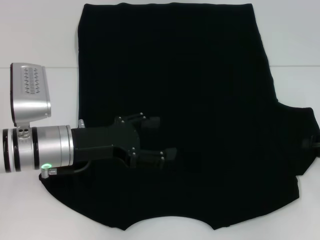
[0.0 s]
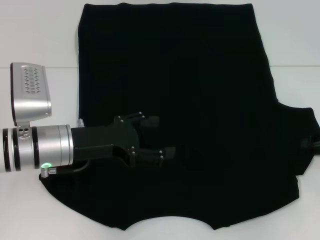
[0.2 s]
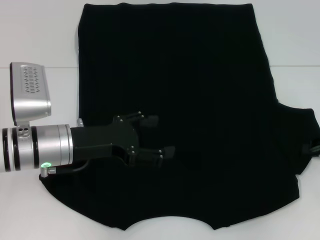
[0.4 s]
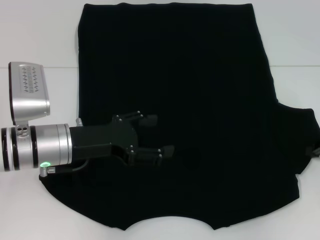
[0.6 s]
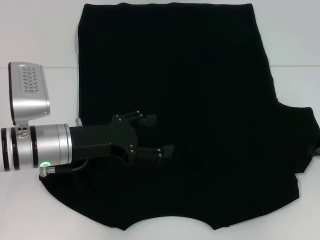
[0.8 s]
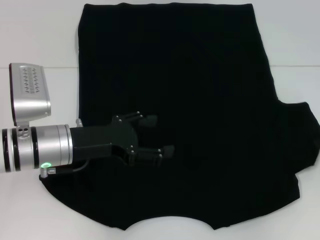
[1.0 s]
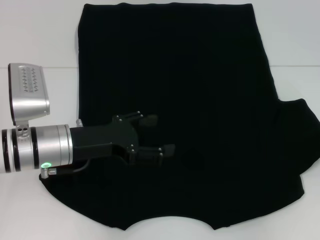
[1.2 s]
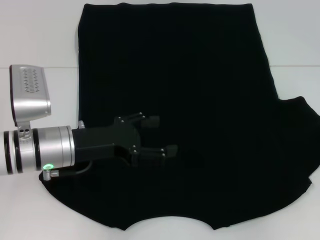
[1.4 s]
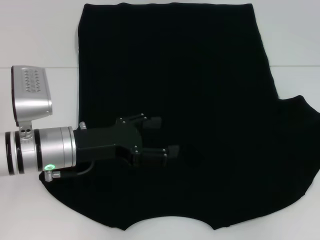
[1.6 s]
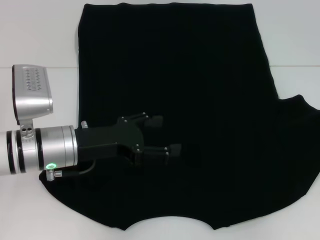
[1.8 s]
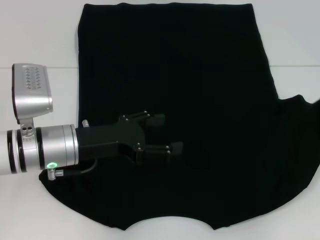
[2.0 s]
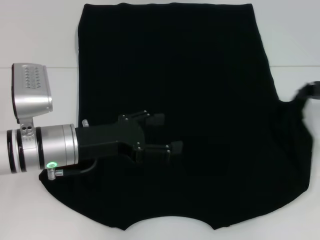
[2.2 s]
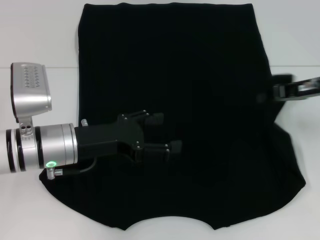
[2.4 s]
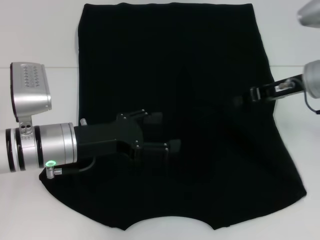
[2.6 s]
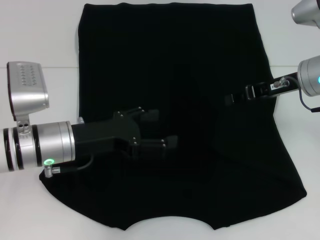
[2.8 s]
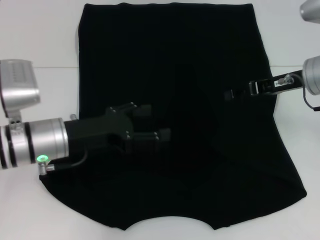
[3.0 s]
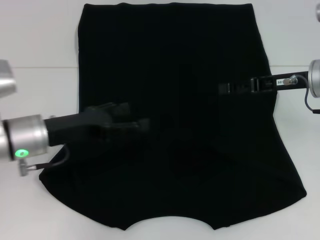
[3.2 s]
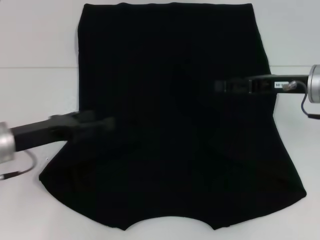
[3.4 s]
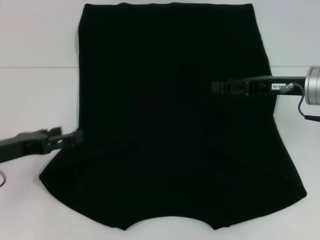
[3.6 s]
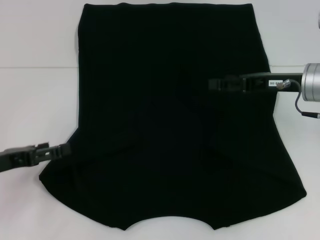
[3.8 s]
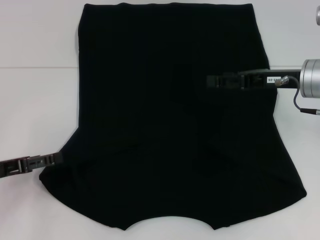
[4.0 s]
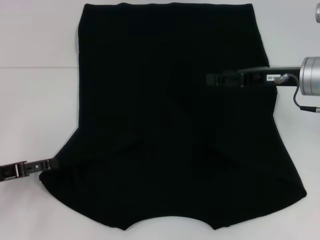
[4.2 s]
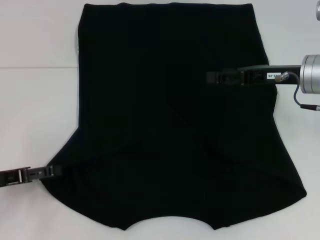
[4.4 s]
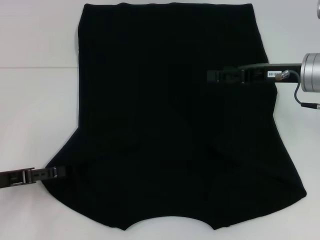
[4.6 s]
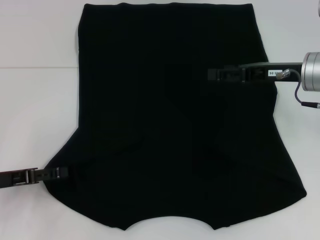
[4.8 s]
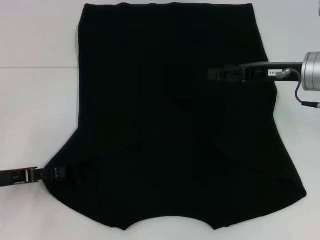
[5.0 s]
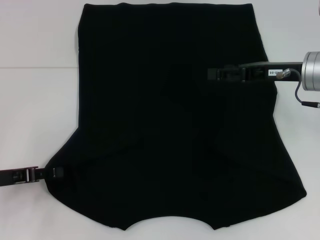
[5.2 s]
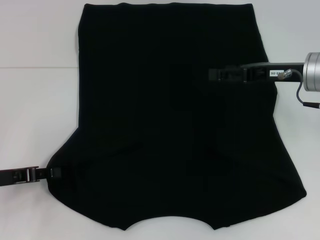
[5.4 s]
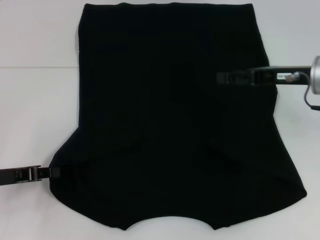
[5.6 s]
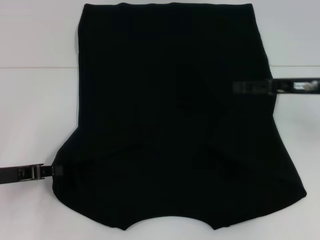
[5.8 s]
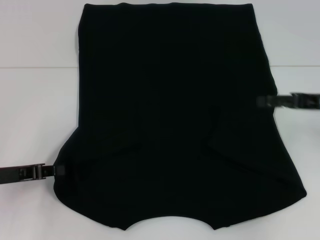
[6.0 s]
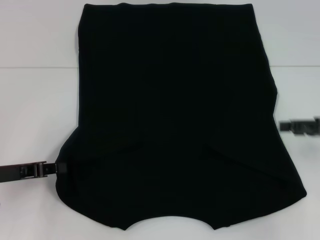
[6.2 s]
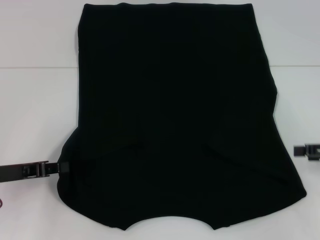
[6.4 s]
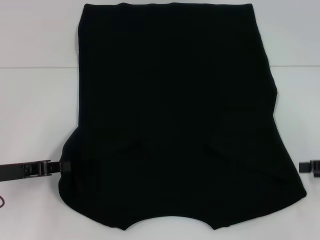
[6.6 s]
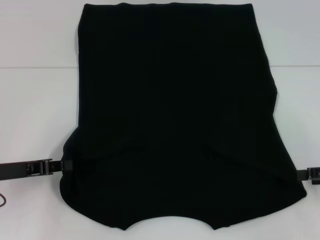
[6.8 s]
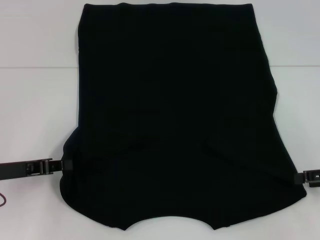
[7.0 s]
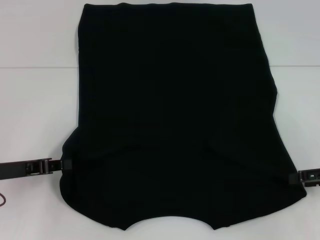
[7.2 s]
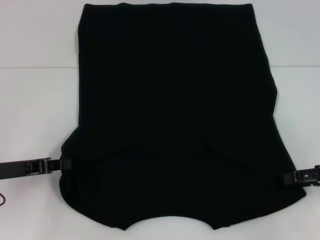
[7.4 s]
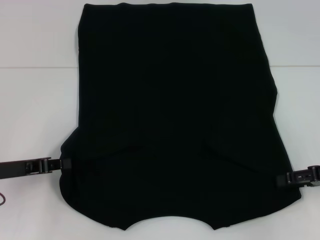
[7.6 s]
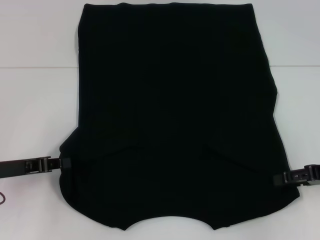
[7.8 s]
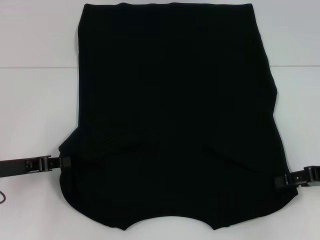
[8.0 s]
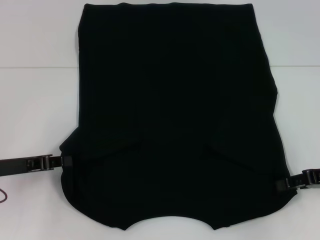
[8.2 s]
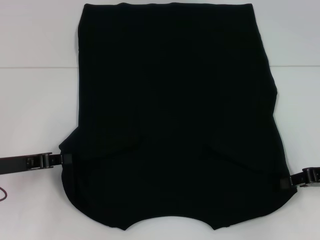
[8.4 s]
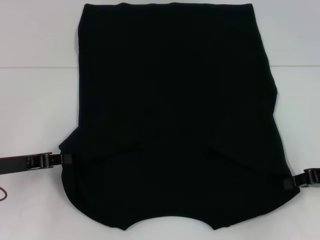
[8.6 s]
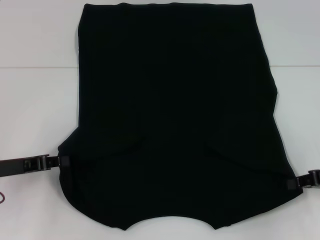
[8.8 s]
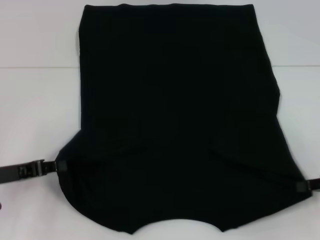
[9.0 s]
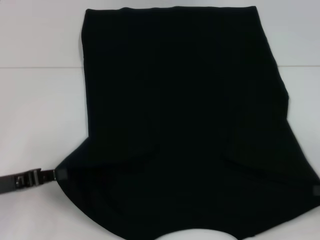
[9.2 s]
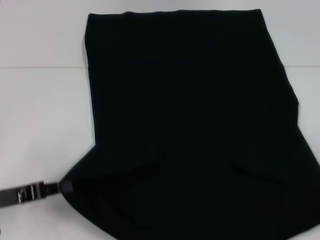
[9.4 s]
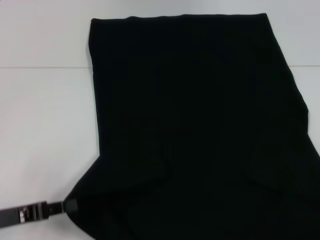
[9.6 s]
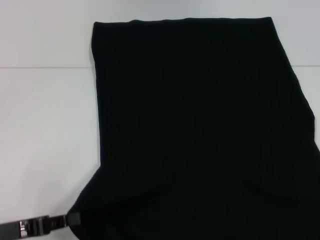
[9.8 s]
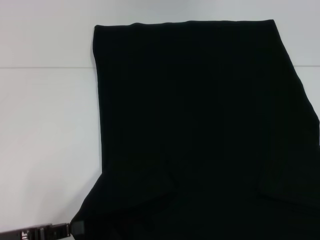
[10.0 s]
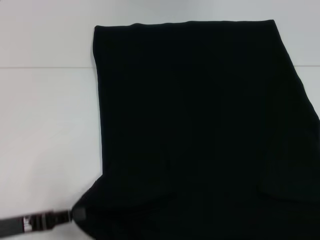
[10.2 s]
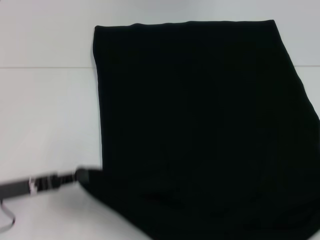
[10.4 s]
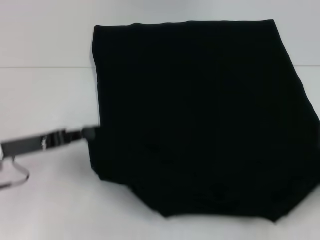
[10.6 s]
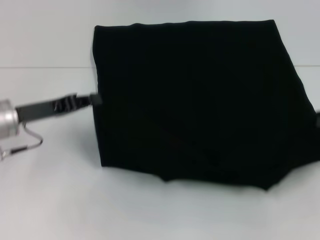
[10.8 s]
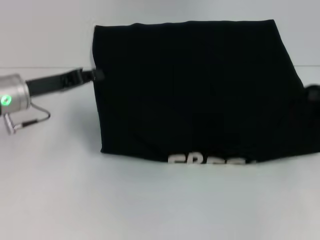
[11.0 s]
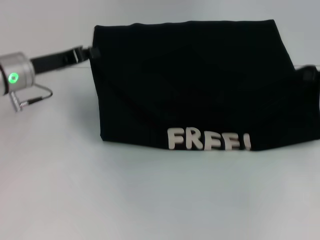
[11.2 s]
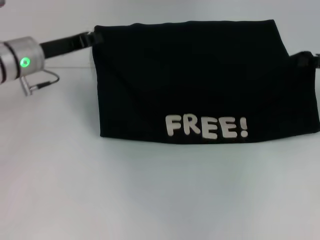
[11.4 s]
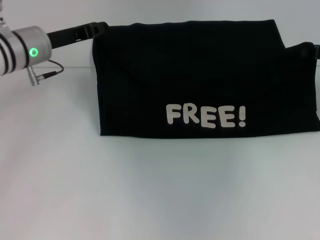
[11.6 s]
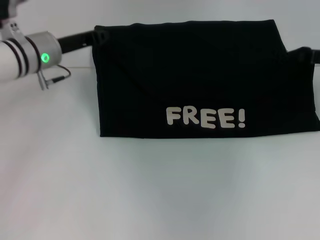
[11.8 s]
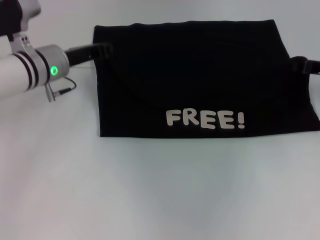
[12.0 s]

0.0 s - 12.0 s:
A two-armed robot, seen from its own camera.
Step, 0.0 s - 2.8 s: Fold the bottom right sleeve with your right hand.
Step, 3.0 s - 5.8 s: Grab the bottom left corner with your left hand.
Step, 6.0 s - 8.6 s: Grab the bottom right corner with your right hand.
0.0 s - 1.6 s: The right gripper closes.
1.6 s - 3.0 s: The right gripper is displaced to the left by roughly 15 cm, and opens up.
3.0 s - 4.4 s: The left gripper heads to the left and backward, covering some 15 cm. The right gripper opens up.
4.4 s - 6.0 s: The right gripper moves to the right, some 10 cm. The left gripper closes up.
6.0 s - 7.6 s: The right gripper travels backward by about 5 cm.
7.6 s - 9.0 s: The right gripper closes.
9.0 s - 10.4 s: The right gripper goes some 10 cm backward and to the right.
10.4 s - 12.0 s: The right gripper moves forward and to the left, approximately 25 cm; the left gripper goes roughly 20 cm forward and to the right.

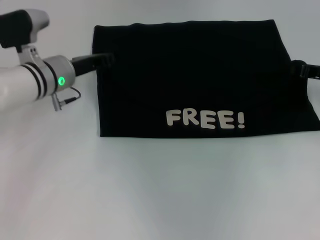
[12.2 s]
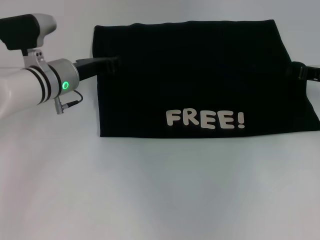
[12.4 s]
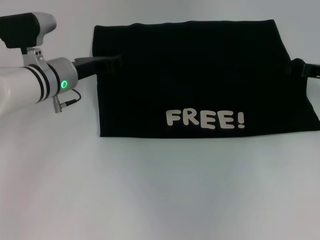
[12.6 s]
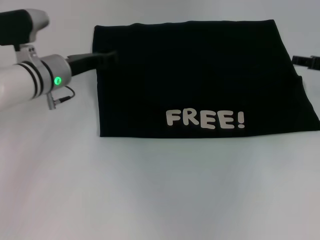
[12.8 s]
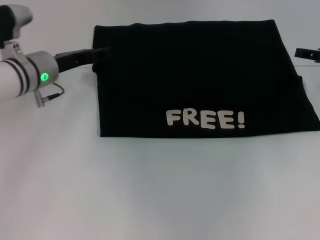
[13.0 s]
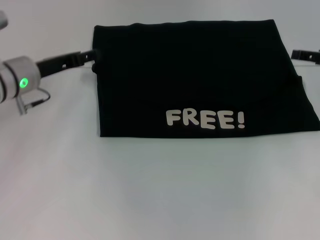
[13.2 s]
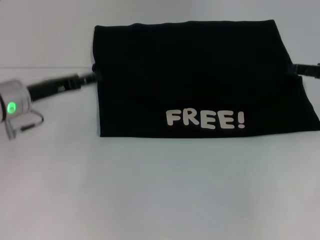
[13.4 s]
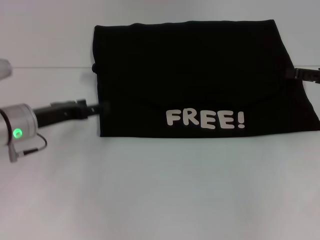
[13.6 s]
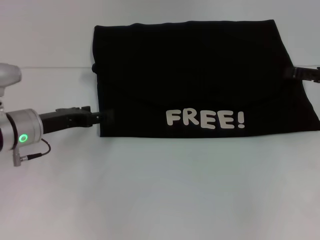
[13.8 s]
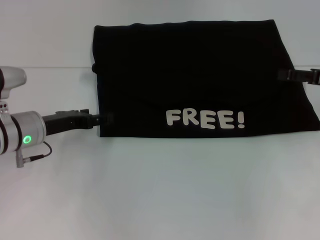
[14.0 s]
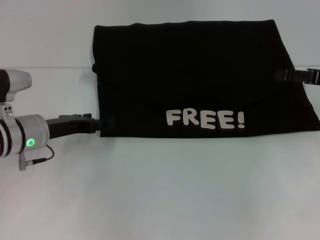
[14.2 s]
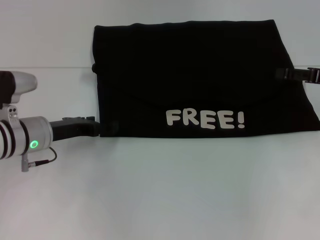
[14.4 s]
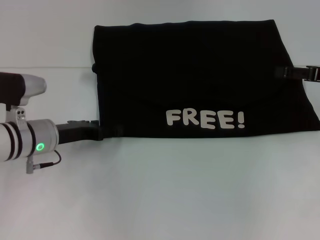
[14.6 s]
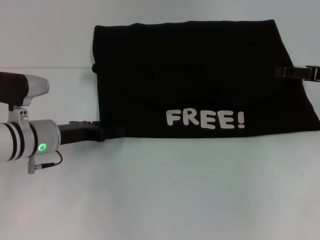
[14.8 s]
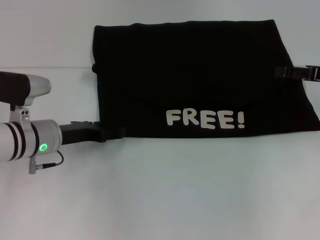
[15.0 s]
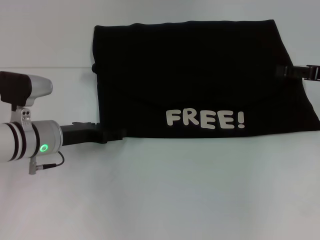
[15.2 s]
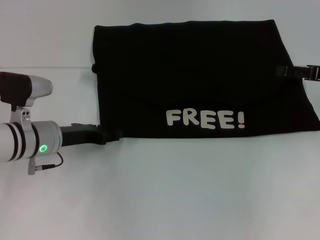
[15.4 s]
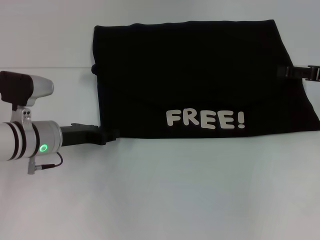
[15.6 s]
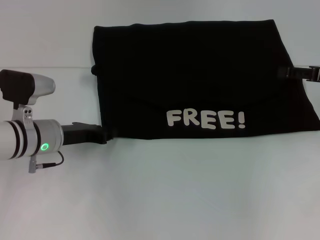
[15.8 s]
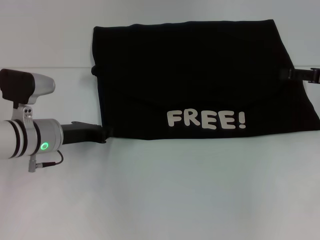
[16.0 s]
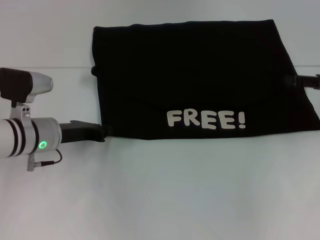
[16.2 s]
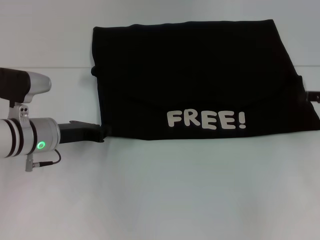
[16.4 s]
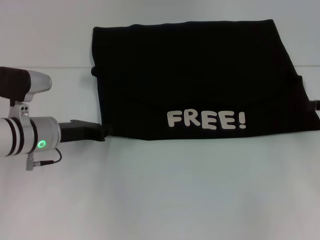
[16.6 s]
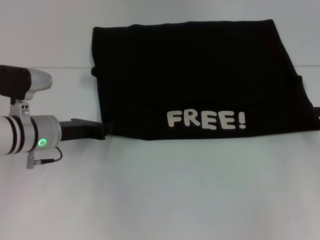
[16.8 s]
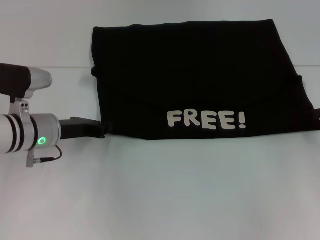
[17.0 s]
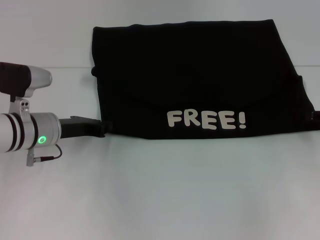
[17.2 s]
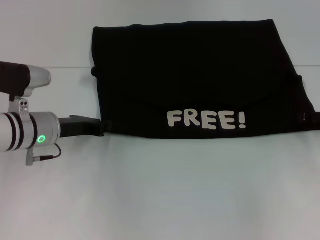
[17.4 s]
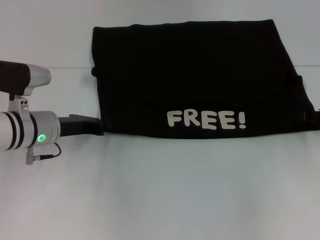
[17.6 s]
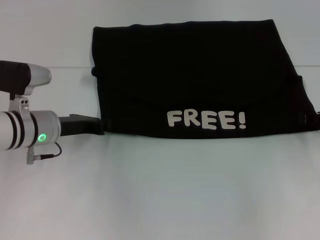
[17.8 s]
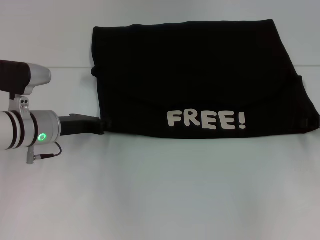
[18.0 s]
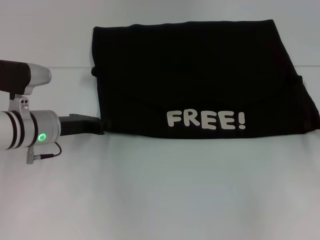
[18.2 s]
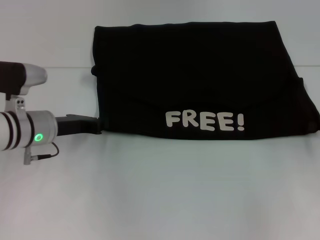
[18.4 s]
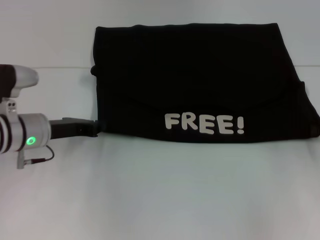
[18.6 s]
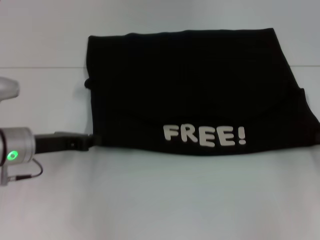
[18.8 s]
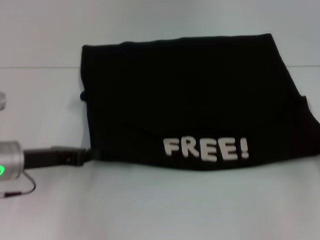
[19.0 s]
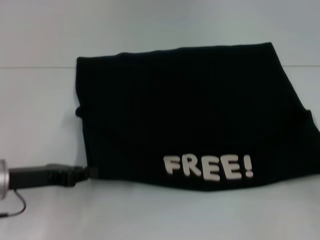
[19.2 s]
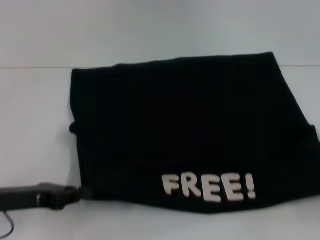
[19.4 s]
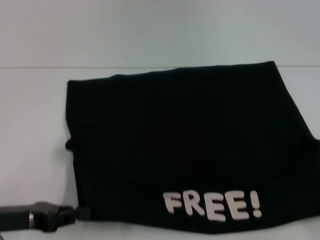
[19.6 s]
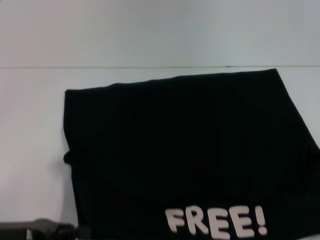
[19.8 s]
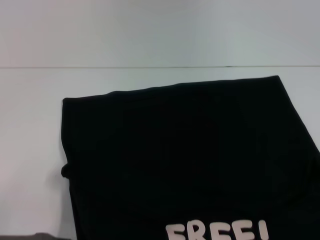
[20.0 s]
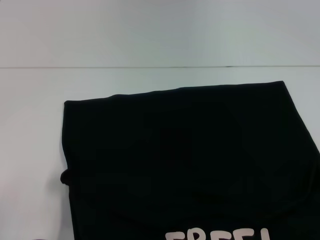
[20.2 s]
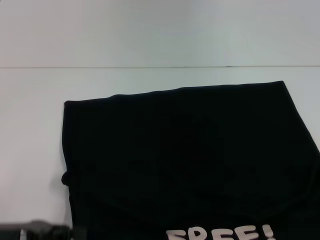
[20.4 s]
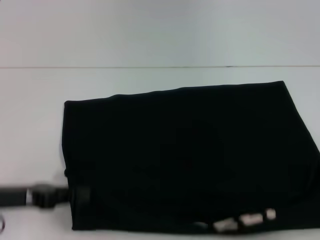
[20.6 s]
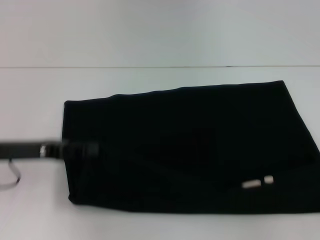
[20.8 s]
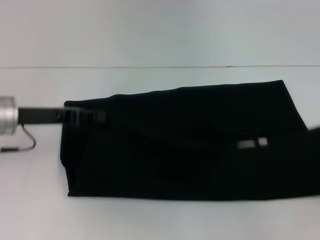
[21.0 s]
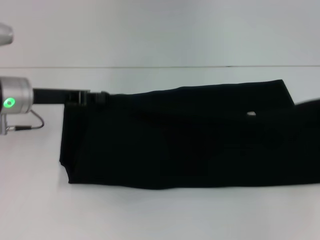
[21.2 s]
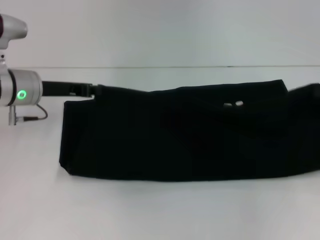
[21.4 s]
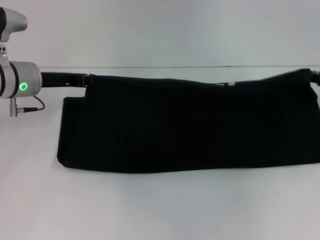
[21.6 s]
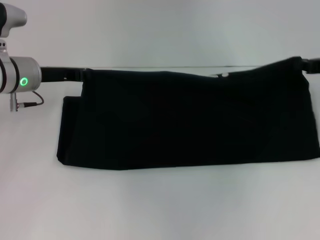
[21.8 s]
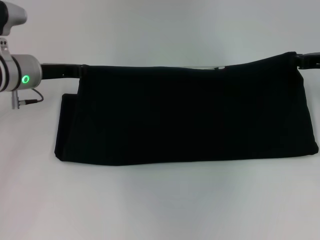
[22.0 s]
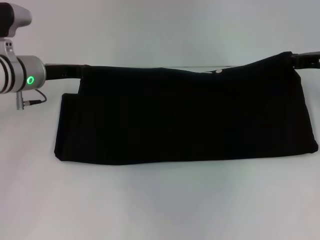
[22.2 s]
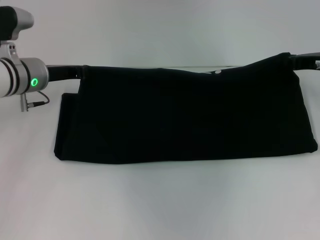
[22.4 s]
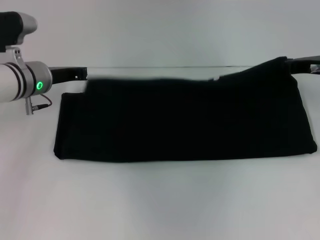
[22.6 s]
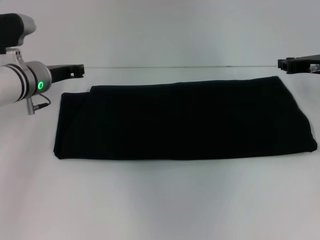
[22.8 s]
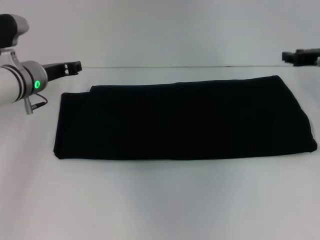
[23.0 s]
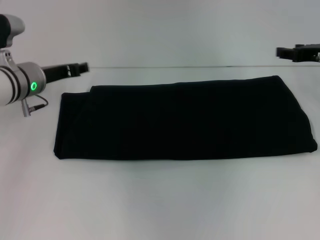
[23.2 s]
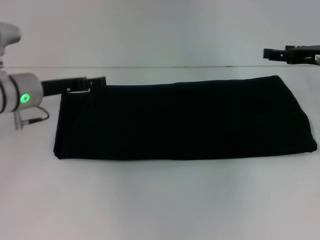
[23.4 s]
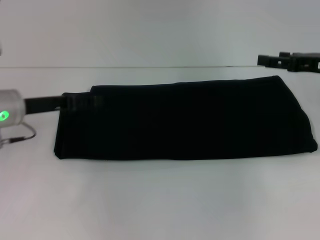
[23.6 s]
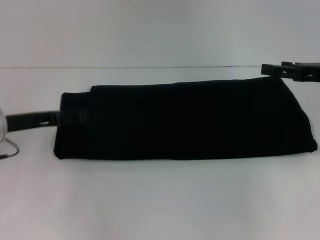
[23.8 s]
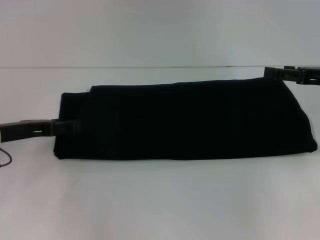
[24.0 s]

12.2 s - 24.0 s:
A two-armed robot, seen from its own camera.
Step, 13.0 s - 20.0 s: Pull the clothes with your left hand.
Step, 13.0 s - 20.0 s: Pull the clothes with your right hand.
Step, 20.2 s - 22.8 s: Fold the clothes with your right hand.
12.2 s - 13.6 s: The right gripper shifts by approximately 5 cm, and opens its fingers. Meanwhile the left gripper moves backward and to the left, some 10 cm, and opens up.
13.6 s - 15.2 s: There are only small adjustments of the grippers.
15.2 s - 16.6 s: The left gripper closes up, while the right gripper changes place by about 5 cm.
16.6 s - 18.2 s: The right gripper closes up.
18.2 s - 19.6 s: The right gripper shifts approximately 15 cm backward. Meanwhile the left gripper shifts approximately 15 cm backward and to the left.
19.6 s - 21.0 s: The left gripper goes about 15 cm forward and upward; the right gripper is displaced forward by some 10 cm.
21.0 s - 22.6 s: The right gripper travels forward and to the left by about 20 cm, while the left gripper is displaced forward by some 10 cm.
22.6 s - 24.0 s: The right gripper is displaced backward by some 5 cm, and opens, while the left gripper shifts about 10 cm backward and to the left, and opens.
